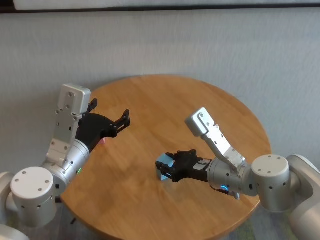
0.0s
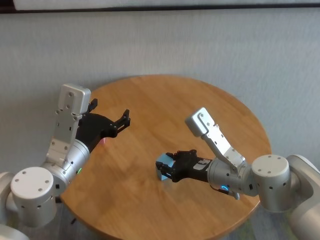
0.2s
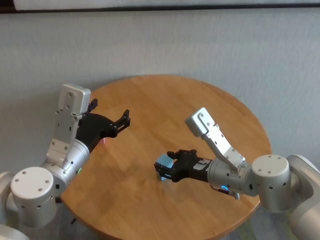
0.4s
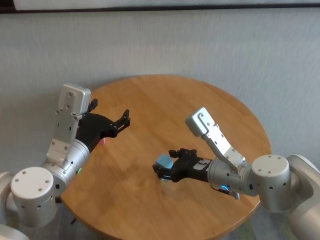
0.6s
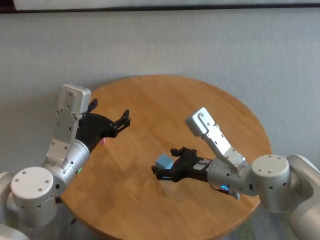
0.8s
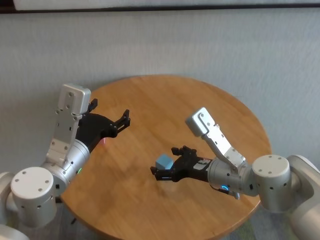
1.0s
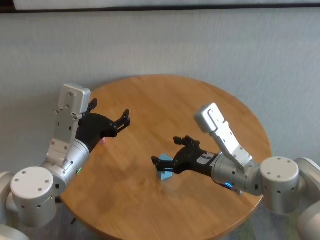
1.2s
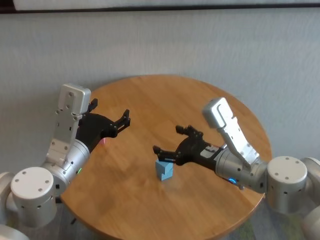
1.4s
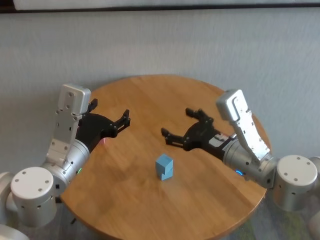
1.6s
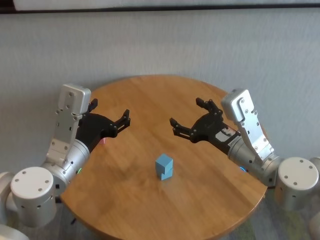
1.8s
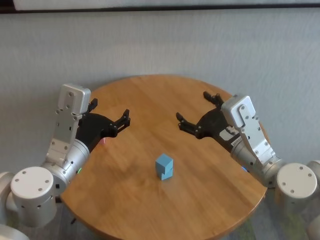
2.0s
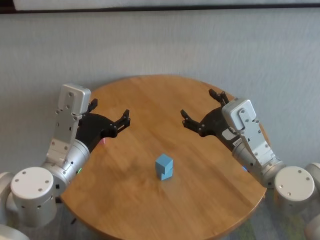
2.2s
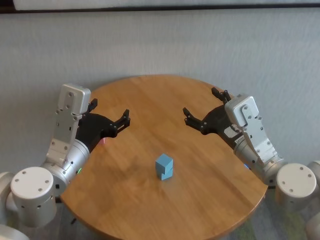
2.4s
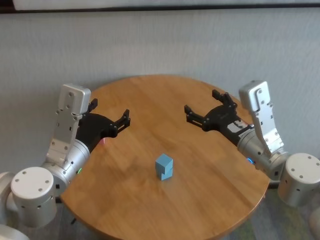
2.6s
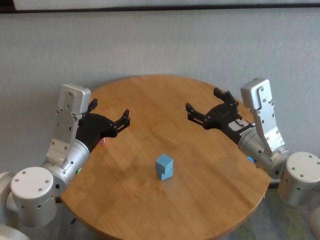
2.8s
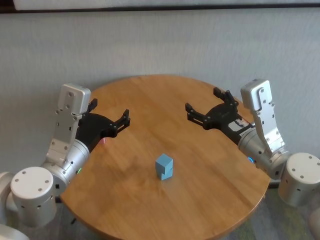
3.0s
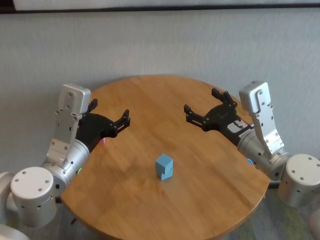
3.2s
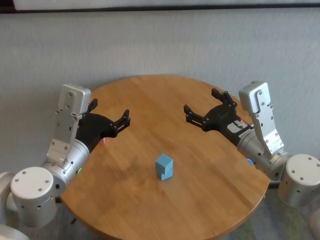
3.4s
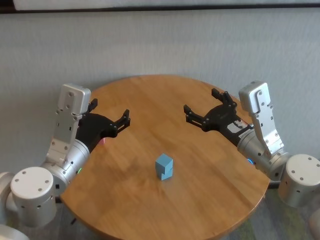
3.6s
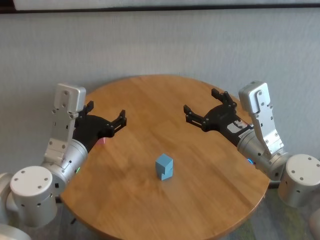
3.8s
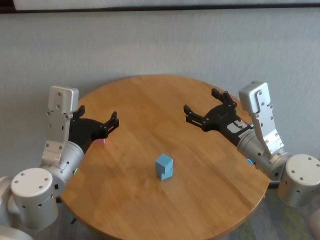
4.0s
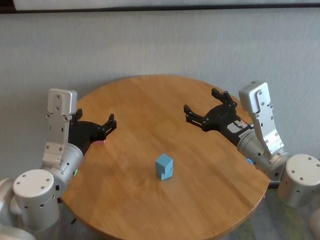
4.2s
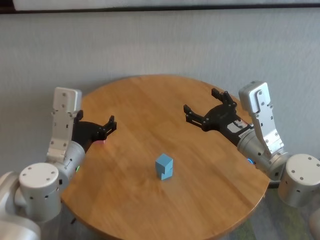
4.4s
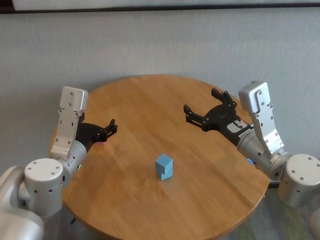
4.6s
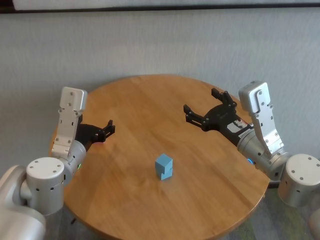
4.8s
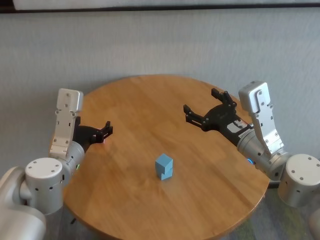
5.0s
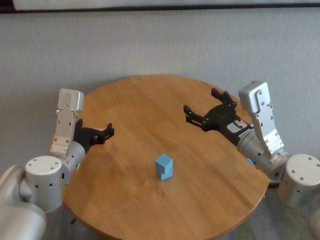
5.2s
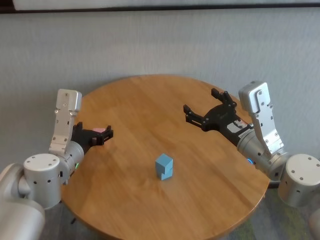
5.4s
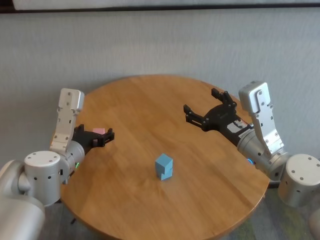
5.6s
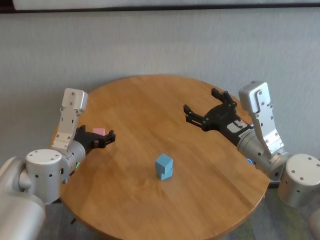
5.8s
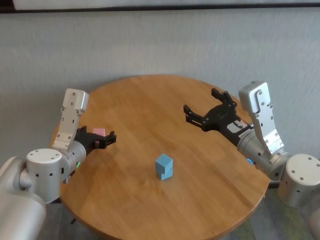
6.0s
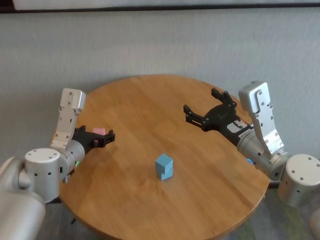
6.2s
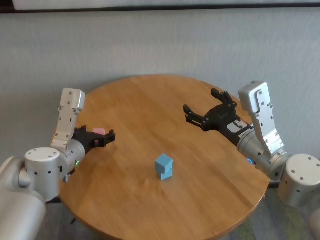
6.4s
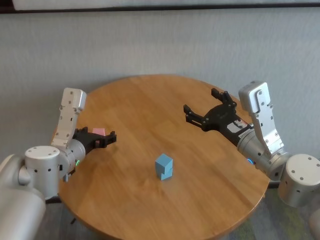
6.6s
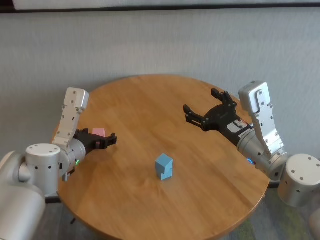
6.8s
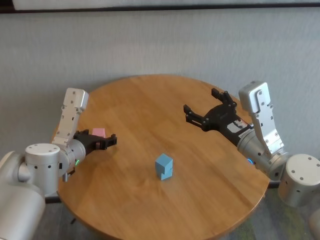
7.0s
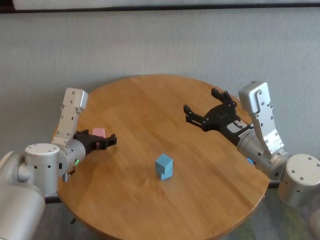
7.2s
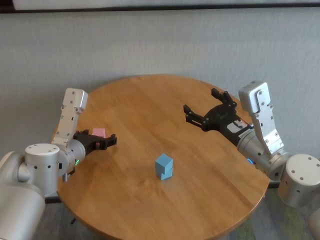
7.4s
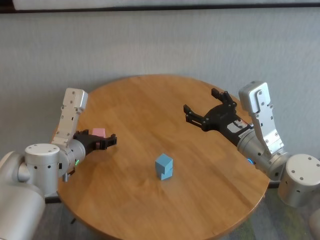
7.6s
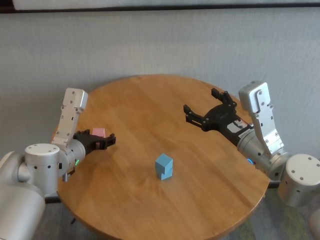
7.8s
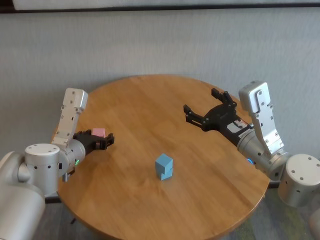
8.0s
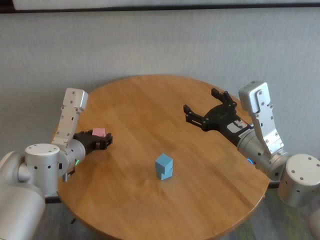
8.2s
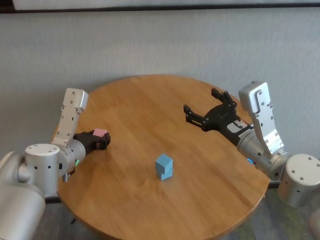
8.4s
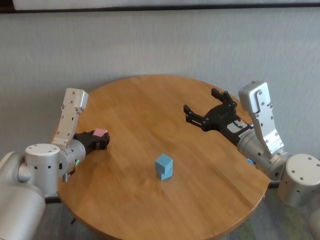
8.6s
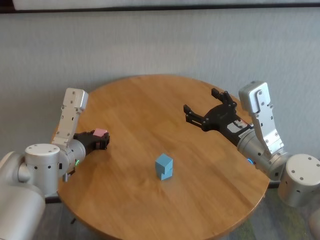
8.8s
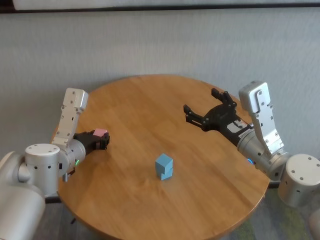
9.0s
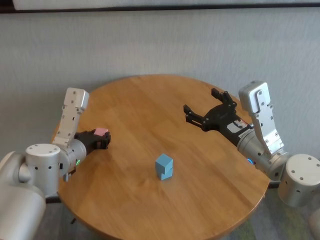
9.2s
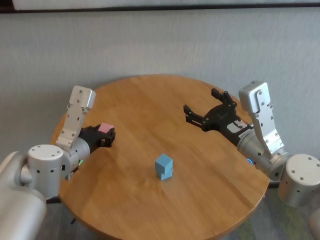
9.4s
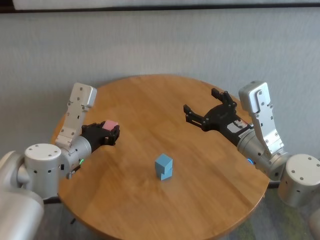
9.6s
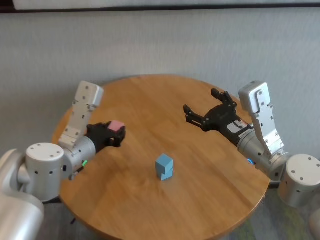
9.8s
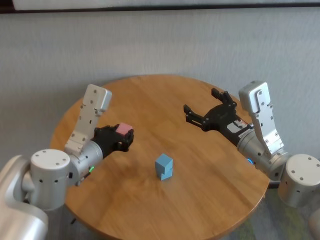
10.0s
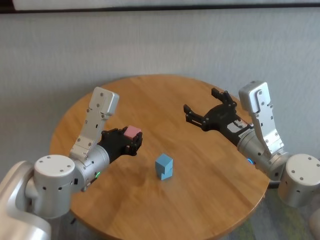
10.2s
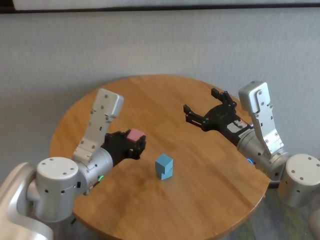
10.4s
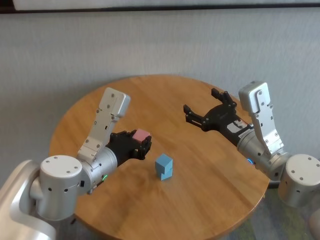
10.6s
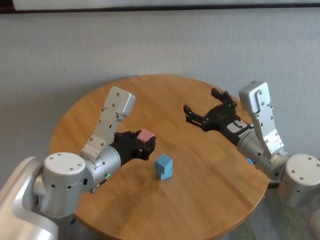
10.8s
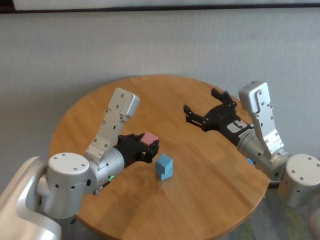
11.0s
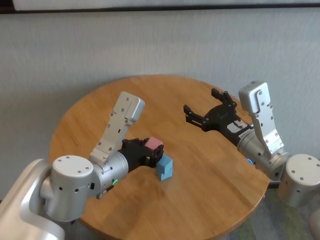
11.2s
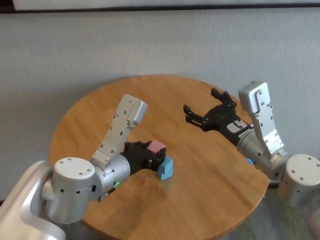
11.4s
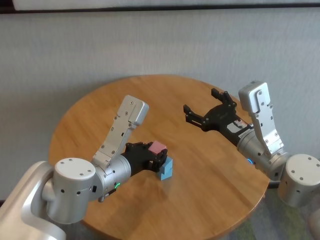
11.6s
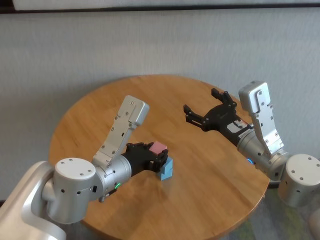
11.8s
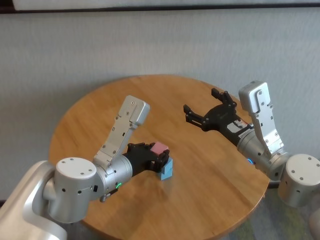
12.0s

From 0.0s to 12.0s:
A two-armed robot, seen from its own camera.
Task of the whole recording: stack building blocks on the table.
Step, from 1.0s to 9.0s: Grasp the pink building block with left gripper.

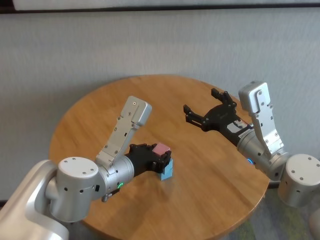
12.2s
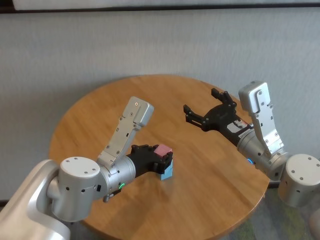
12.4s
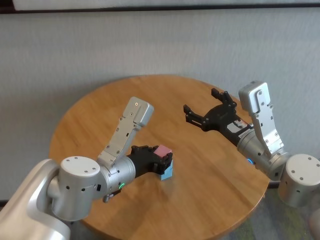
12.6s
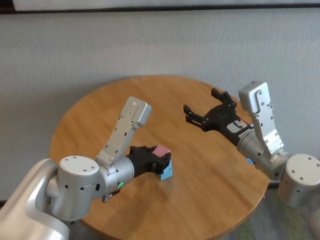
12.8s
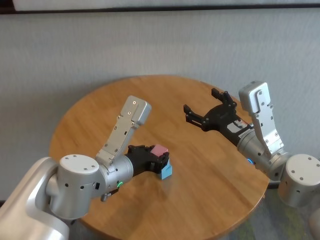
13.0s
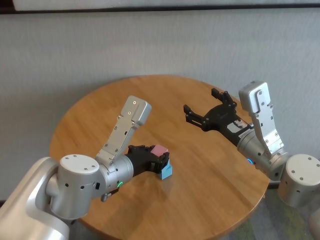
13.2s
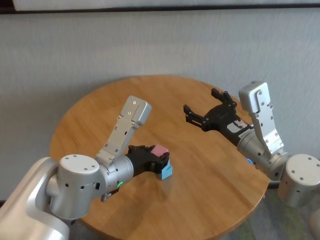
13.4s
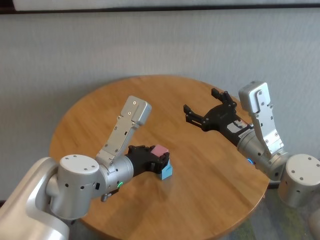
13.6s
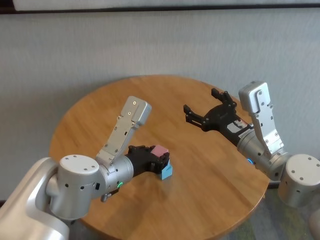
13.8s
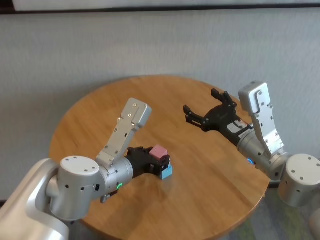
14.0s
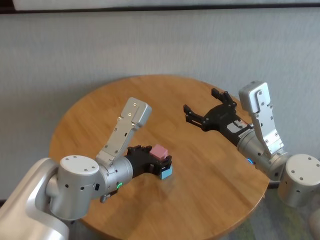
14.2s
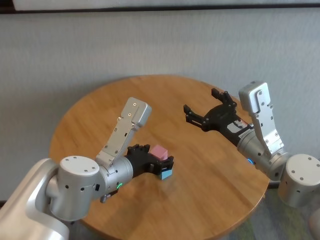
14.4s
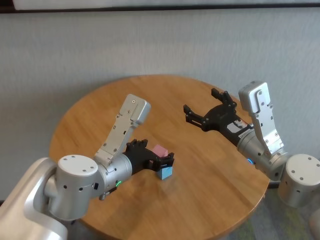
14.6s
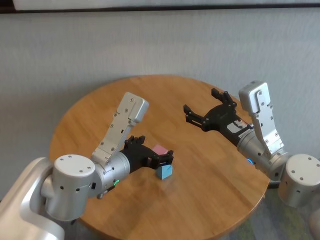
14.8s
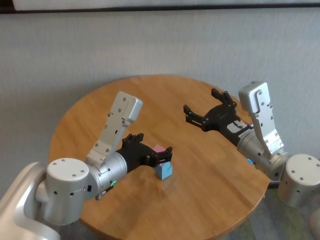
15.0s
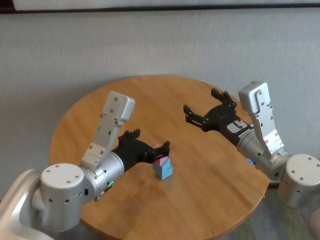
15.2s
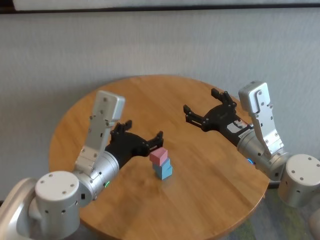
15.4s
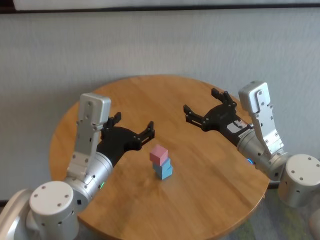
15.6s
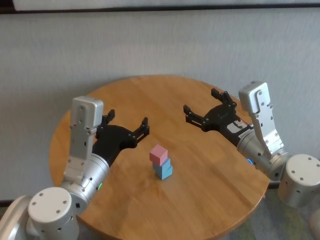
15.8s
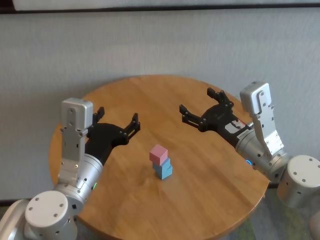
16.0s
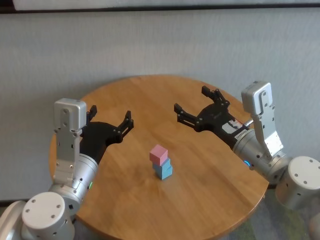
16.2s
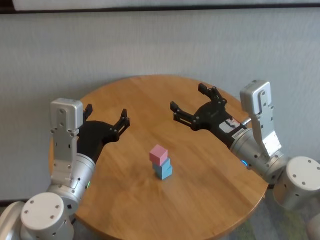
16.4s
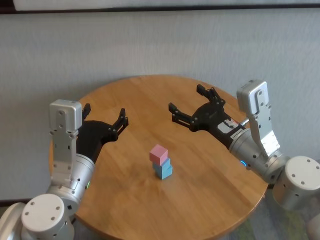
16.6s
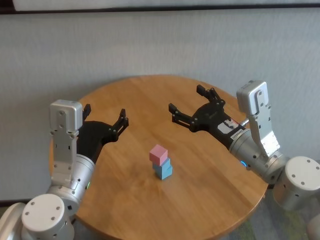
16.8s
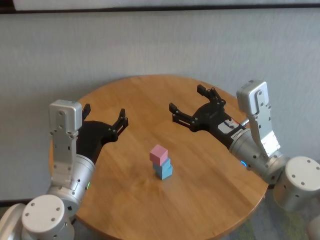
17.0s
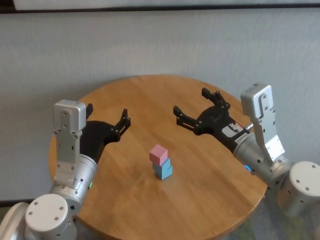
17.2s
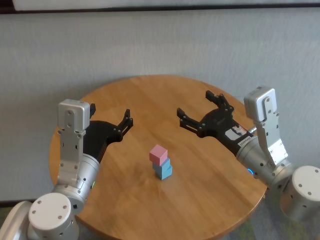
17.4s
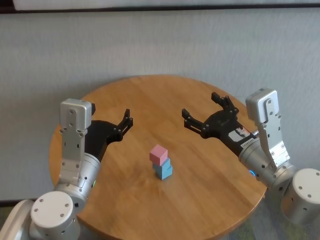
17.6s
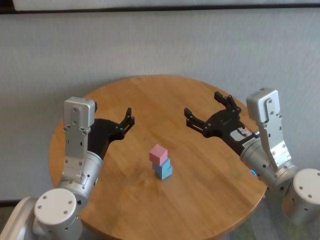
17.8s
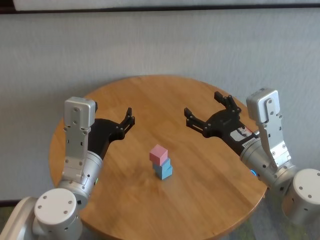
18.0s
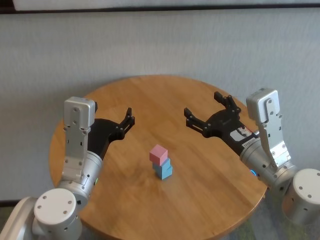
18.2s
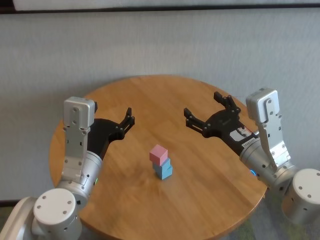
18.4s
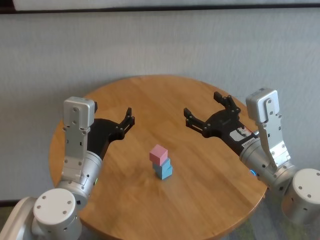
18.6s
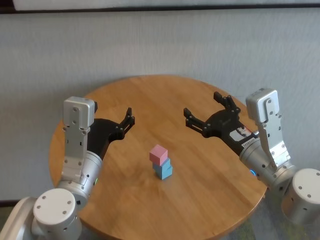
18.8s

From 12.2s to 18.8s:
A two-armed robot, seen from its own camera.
Task of the whole recording: stack building blocks on the table.
Step, from 12.2s to 14.6s: Place the pink building block on the blue building blocks with left gripper.
